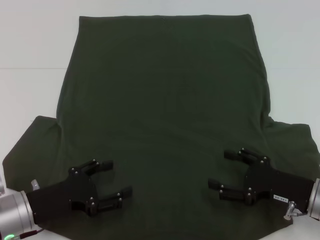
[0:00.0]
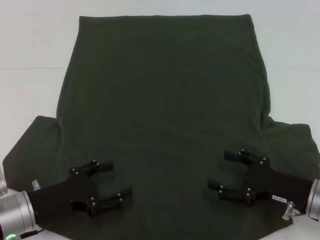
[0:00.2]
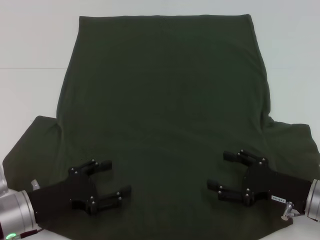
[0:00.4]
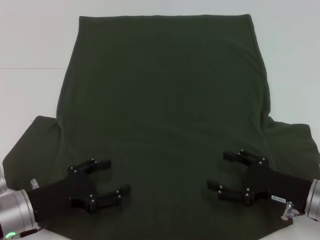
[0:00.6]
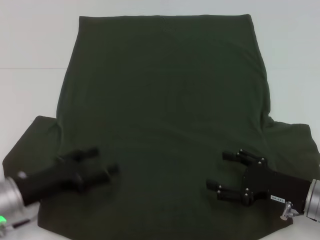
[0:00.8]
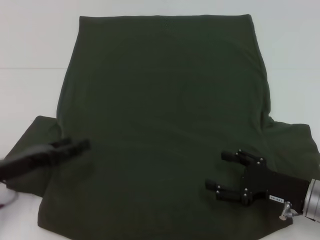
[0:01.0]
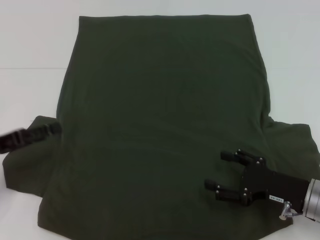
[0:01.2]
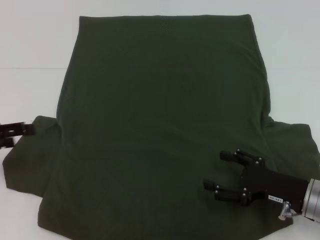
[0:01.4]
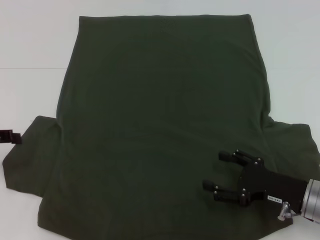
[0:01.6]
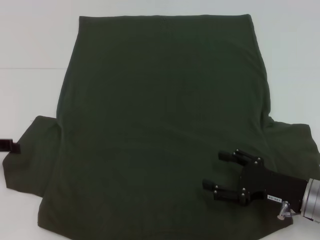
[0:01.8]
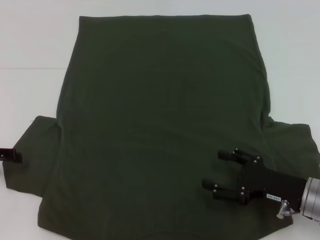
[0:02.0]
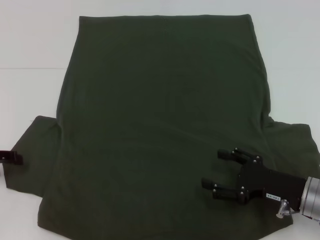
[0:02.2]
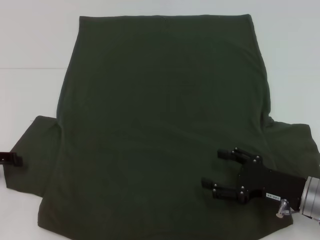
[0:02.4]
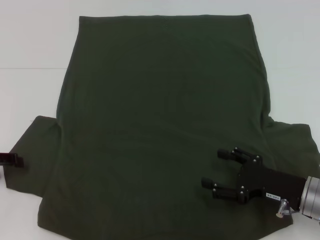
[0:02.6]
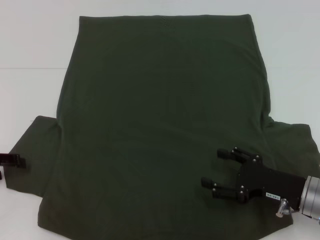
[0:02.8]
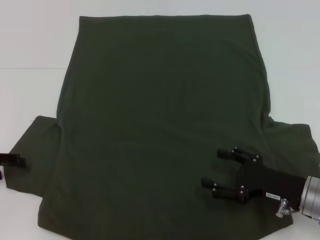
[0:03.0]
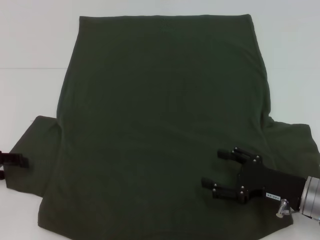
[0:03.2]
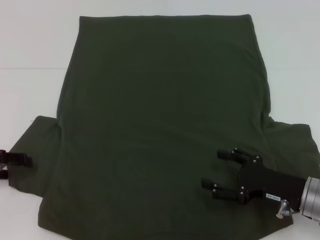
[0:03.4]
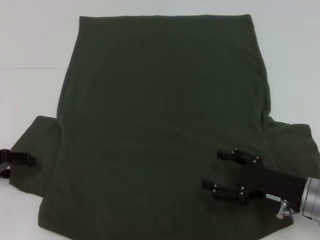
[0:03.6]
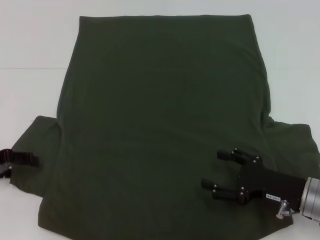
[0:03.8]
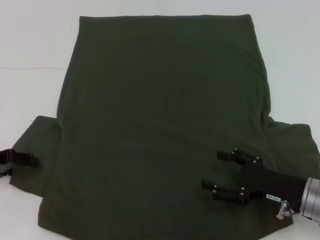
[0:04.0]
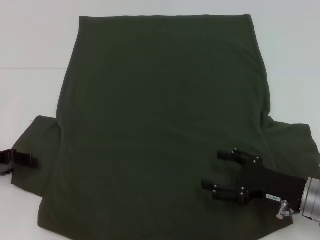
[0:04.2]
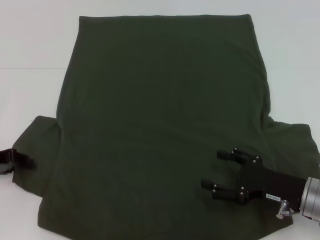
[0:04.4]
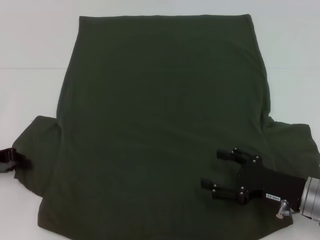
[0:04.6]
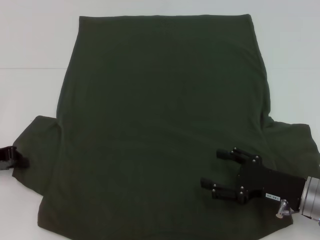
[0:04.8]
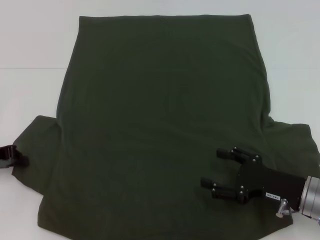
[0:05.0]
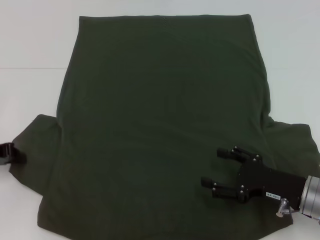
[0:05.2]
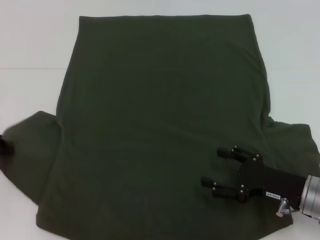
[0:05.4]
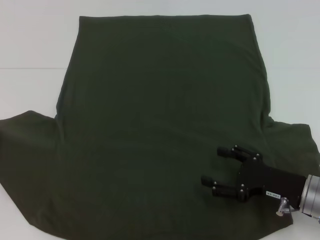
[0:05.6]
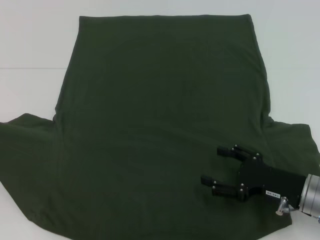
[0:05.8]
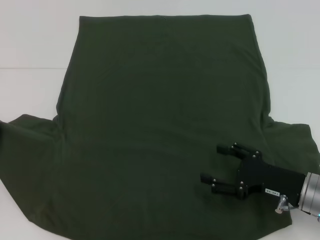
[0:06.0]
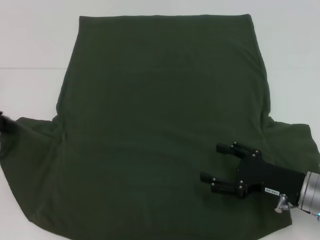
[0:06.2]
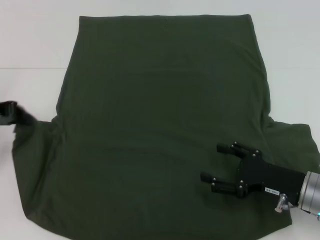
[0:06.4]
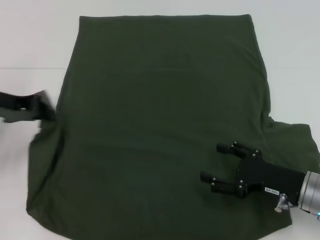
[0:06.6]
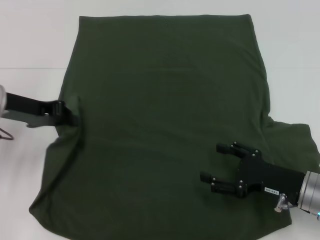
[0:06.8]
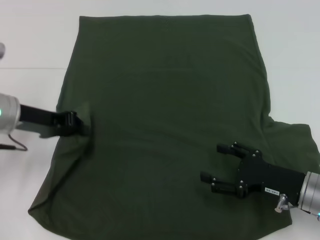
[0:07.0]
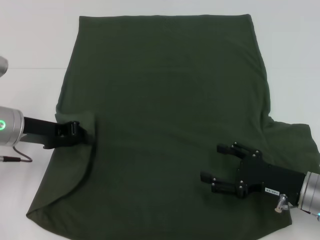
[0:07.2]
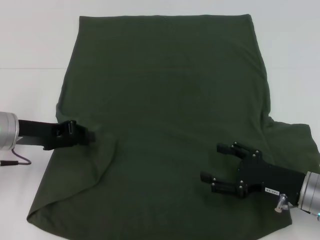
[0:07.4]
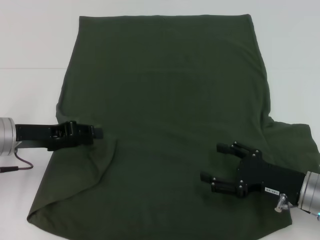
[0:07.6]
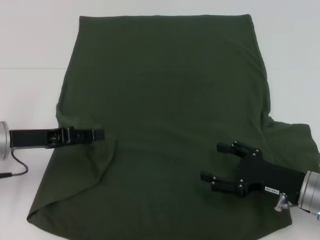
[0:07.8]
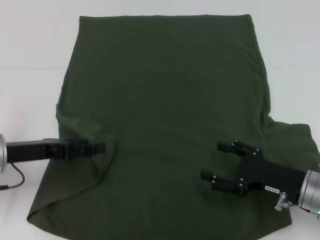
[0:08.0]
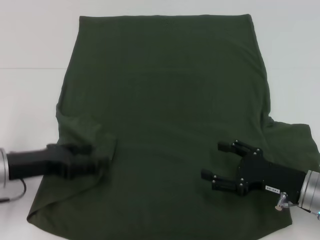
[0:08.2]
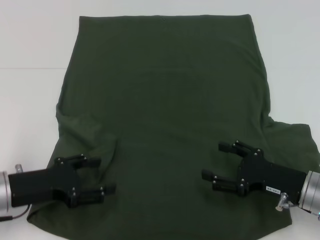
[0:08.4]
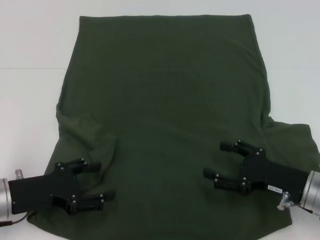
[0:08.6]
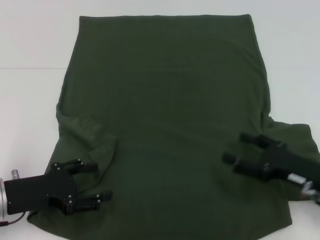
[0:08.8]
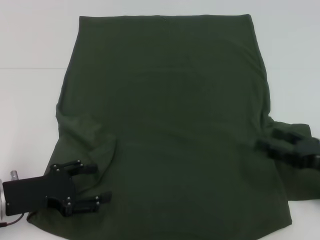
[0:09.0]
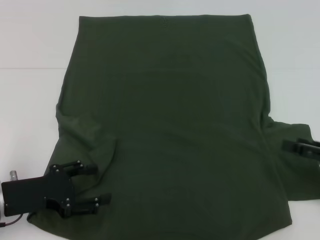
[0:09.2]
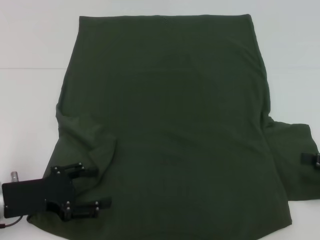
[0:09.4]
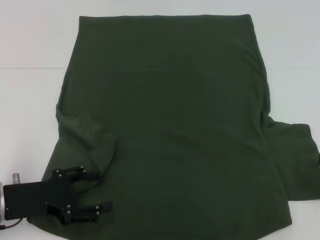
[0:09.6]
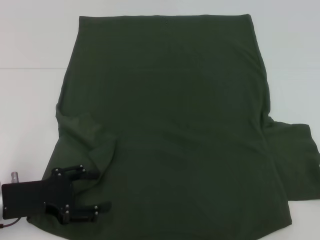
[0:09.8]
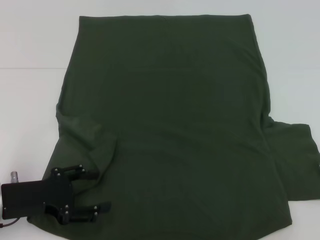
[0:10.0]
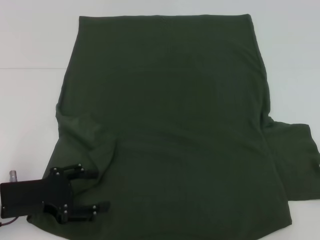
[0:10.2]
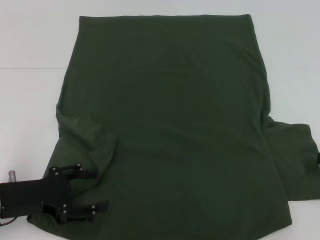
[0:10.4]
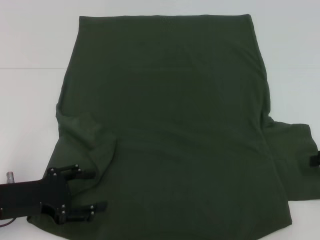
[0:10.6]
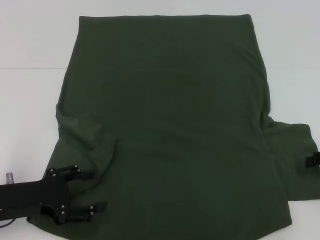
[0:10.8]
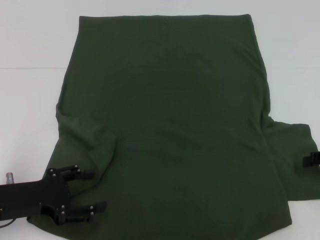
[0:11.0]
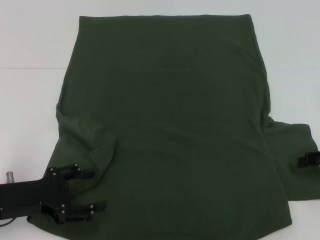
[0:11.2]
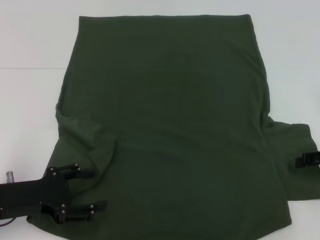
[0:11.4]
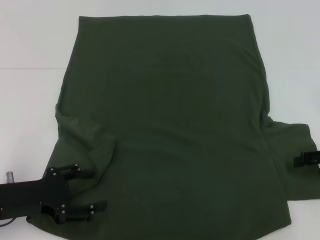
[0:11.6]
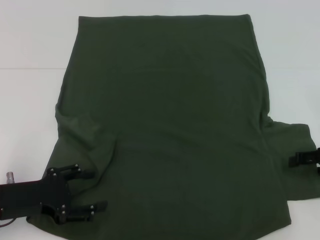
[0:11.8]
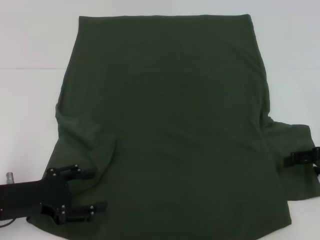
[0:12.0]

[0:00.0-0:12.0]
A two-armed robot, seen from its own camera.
Step, 0:00.0 to 0:07.8: Fold the bottom left sleeve with your left hand.
0:00.0 to 0:01.6: The left gripper shifts some 20 cm to the left, upward and forward.
0:01.6 to 0:04.4: The grippers stay close to where they were, moving slightly.
0:04.4 to 0:06.0: The left gripper moves upward, about 5 cm, and closes its fingers.
0:06.0 to 0:07.6: The left gripper shifts about 10 cm to the right.
0:07.6 to 0:09.0: The right gripper heads to the right, covering roughly 5 cm; the left gripper goes roughly 10 cm backward, and opens.
0:09.0 to 0:10.4: The right gripper goes roughly 10 cm to the right and upward.
0:10.4 to 0:12.0: The right gripper changes place by about 5 cm.

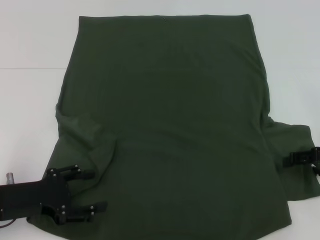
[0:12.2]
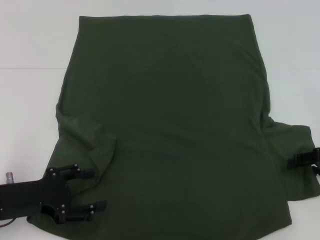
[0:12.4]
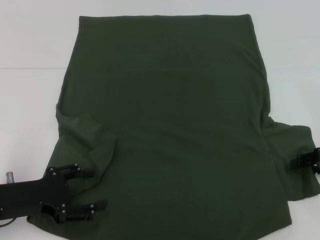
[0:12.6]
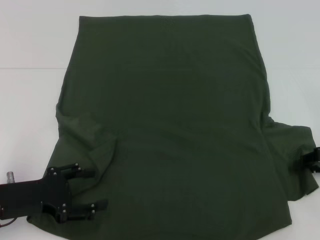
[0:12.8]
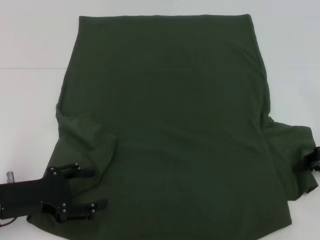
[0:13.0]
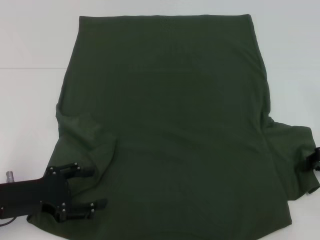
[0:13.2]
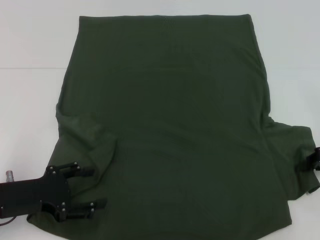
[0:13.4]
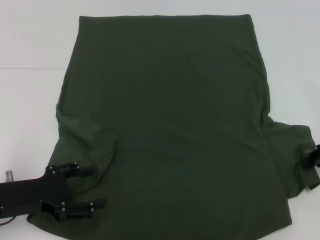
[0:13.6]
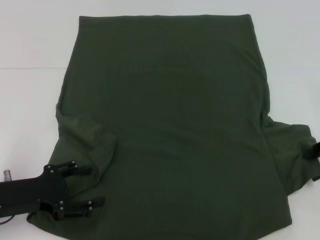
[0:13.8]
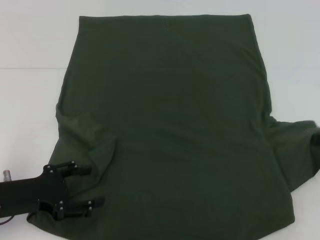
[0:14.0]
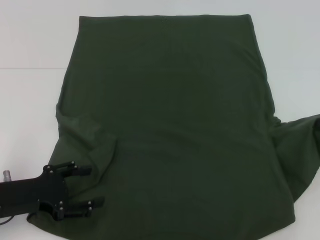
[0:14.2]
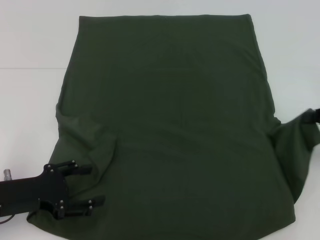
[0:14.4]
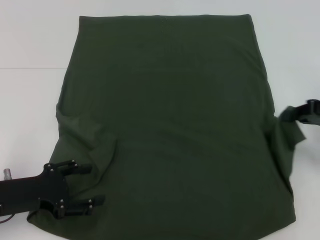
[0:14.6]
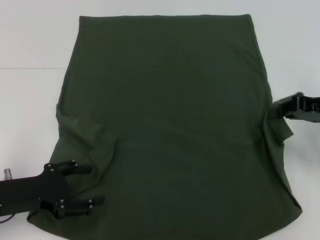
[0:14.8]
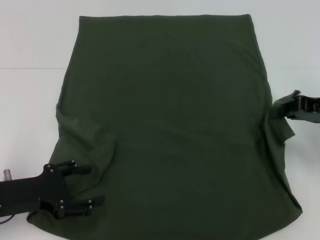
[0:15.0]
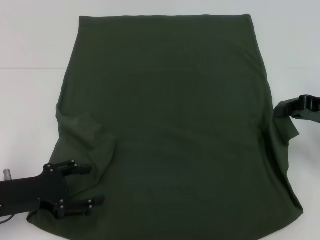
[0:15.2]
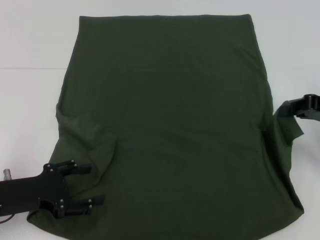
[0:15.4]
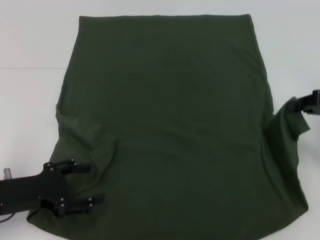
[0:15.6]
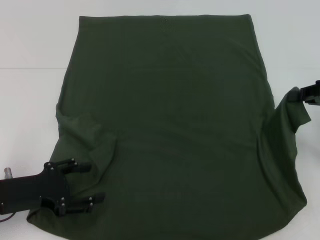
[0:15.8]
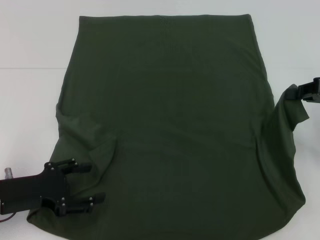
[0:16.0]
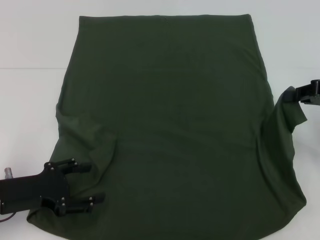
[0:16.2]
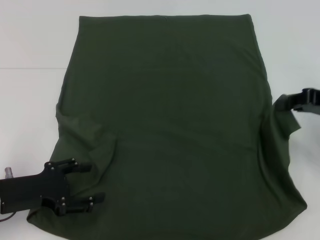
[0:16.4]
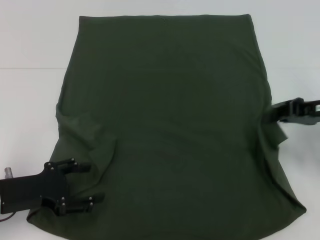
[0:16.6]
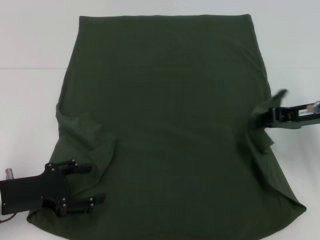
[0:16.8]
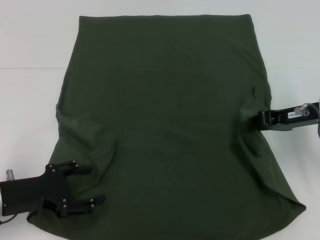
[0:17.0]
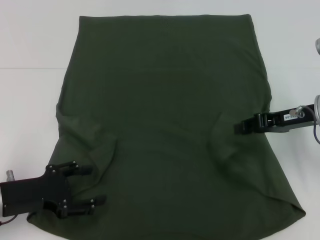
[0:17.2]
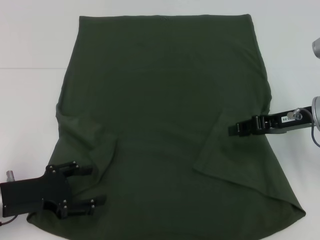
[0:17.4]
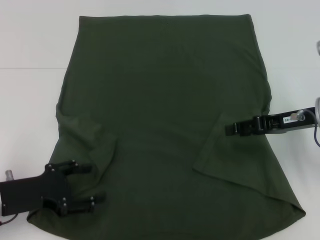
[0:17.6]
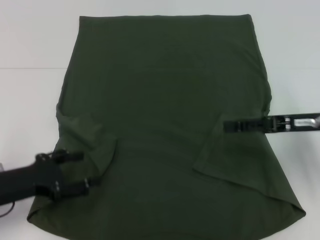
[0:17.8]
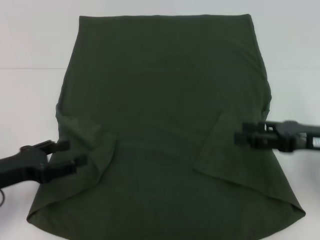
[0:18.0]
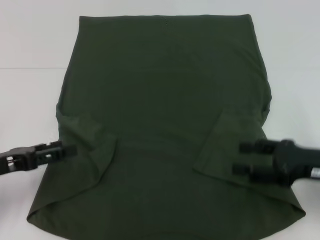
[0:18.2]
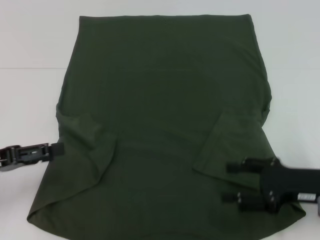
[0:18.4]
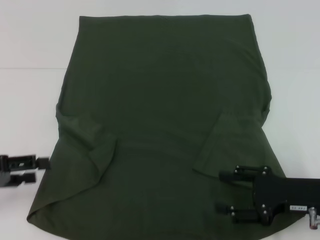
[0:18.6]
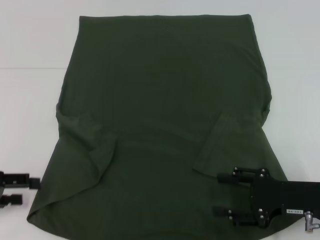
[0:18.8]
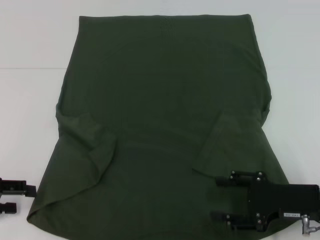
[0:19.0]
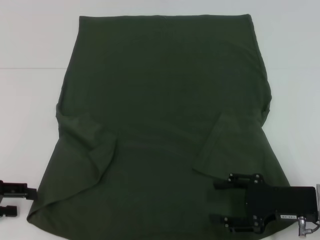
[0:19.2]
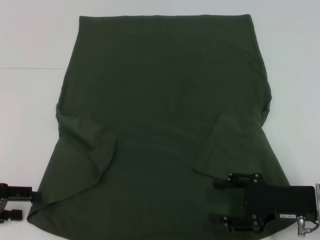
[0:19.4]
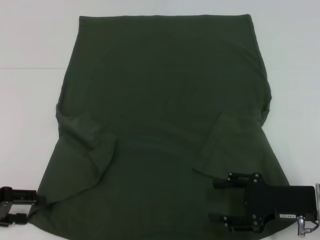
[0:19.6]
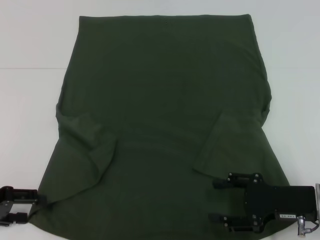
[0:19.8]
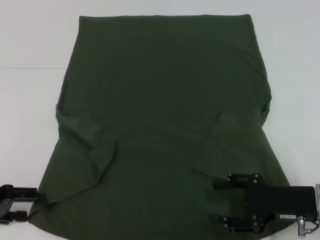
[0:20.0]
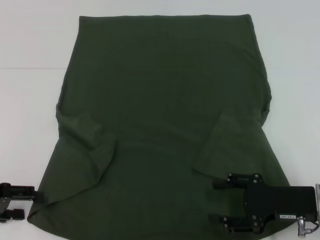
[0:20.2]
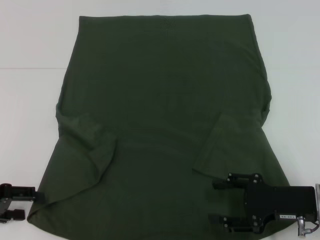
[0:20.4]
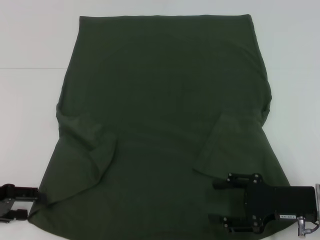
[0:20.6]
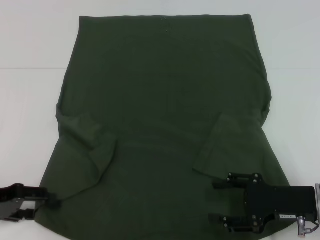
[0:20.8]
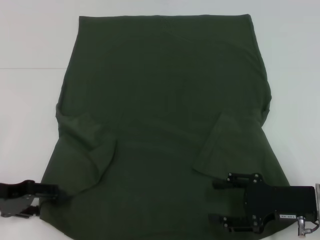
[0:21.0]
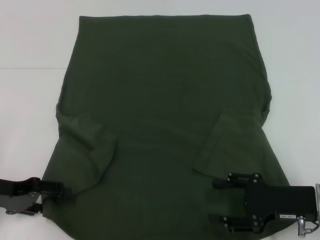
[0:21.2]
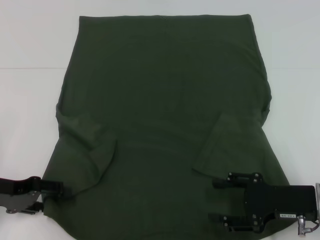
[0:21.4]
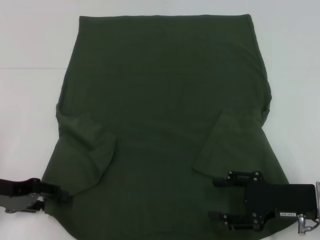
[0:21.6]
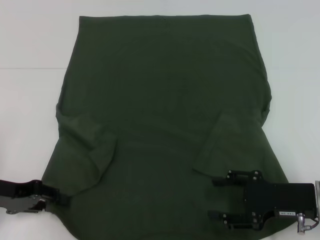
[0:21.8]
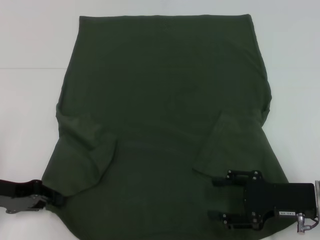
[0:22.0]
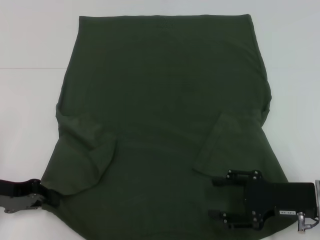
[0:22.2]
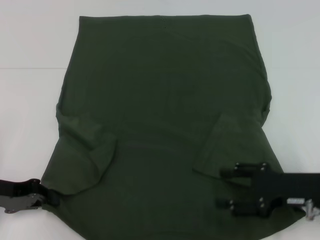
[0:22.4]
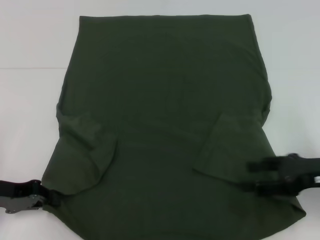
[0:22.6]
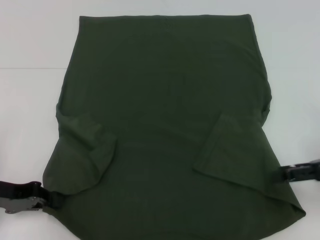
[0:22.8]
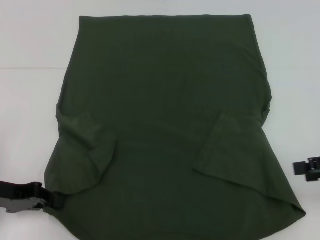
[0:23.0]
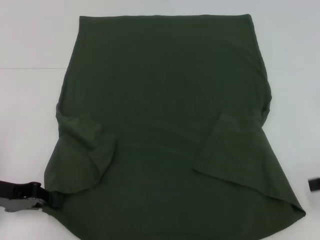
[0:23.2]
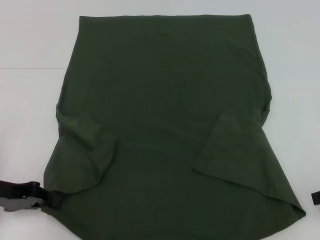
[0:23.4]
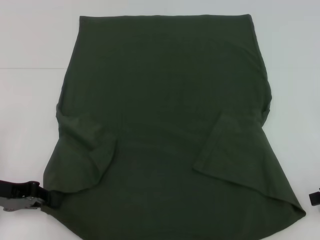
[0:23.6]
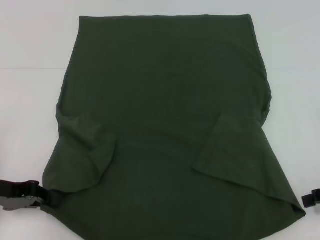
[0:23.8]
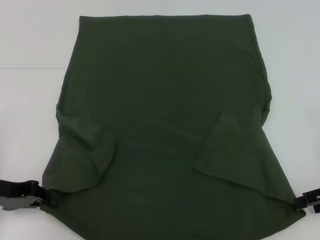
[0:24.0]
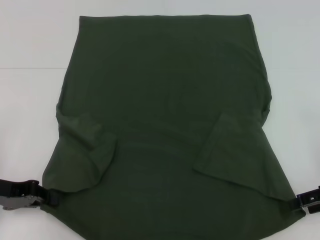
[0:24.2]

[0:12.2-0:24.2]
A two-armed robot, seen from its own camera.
Step, 0:12.2 to 0:17.4: Fold the bottom right sleeve with your right hand.
Step, 0:17.6 to 0:22.2: Grab the bottom left corner with your left hand.
0:12.2 to 0:13.8: The right gripper closes.
0:13.8 to 0:15.2: The right gripper moves roughly 5 cm.
0:15.2 to 0:16.6: The grippers move only a little.
0:16.6 to 0:18.2: The right gripper moves backward, approximately 10 cm, and opens.
0:18.2 to 0:19.8: The right gripper heads downward, covering roughly 5 cm.
0:19.8 to 0:21.2: The grippers move only a little.
0:21.2 to 0:22.6: The left gripper closes its fingers. The right gripper heads upward, covering some 5 cm.
0:22.6 to 0:24.2: The right gripper travels to the right by roughly 5 cm.
